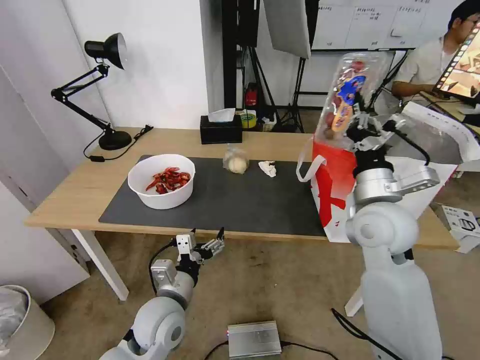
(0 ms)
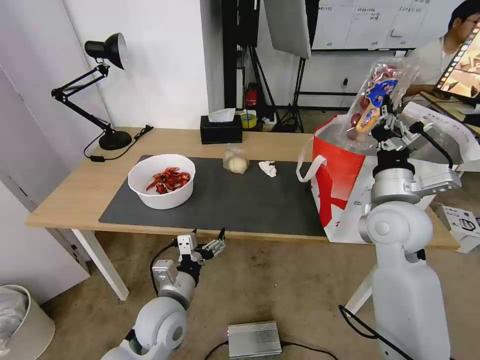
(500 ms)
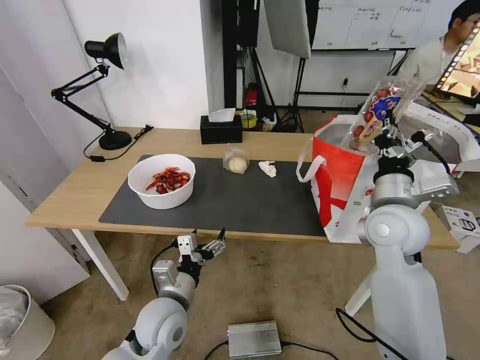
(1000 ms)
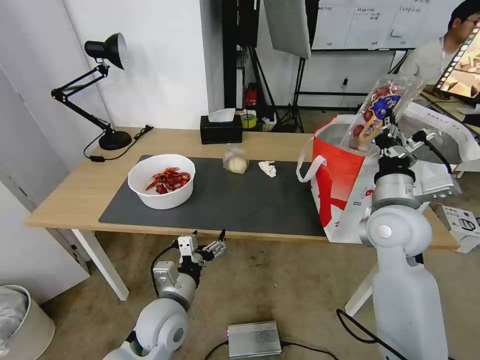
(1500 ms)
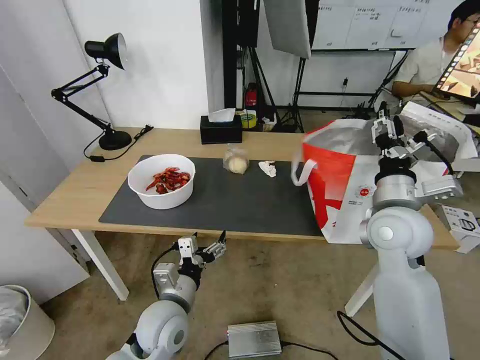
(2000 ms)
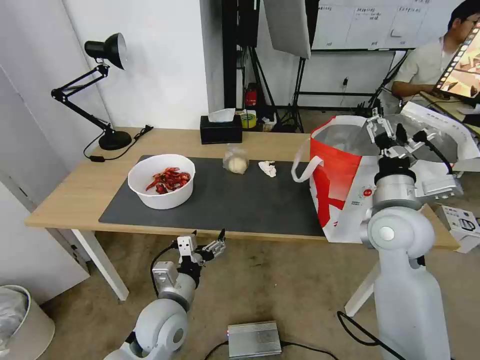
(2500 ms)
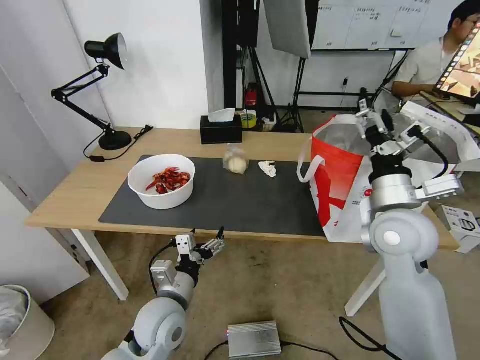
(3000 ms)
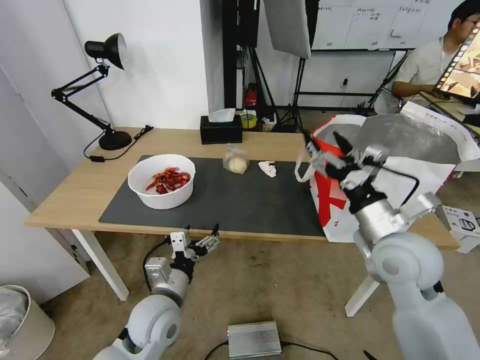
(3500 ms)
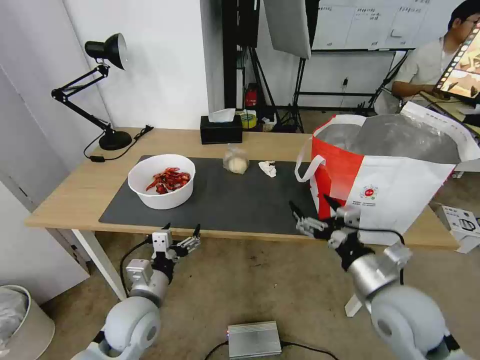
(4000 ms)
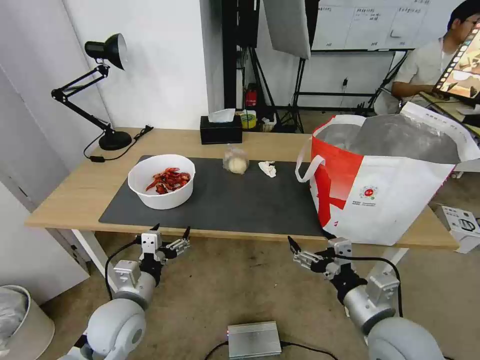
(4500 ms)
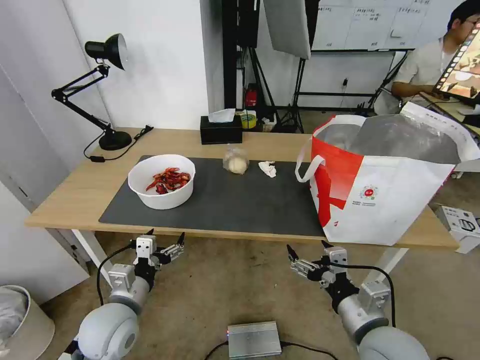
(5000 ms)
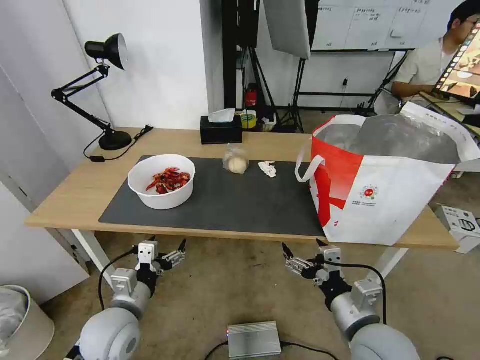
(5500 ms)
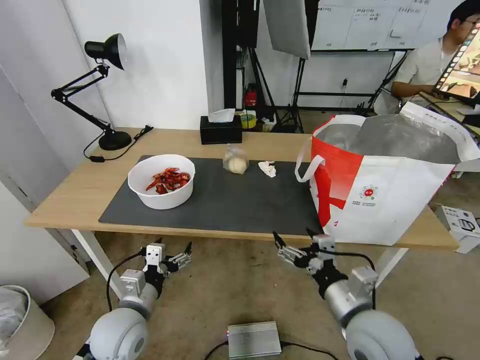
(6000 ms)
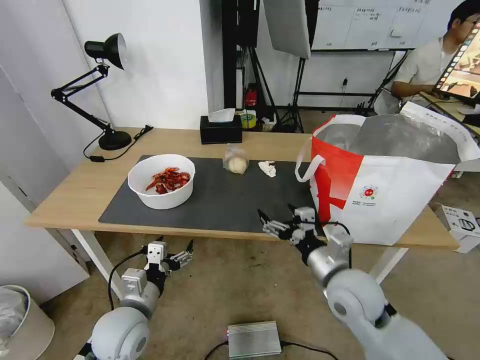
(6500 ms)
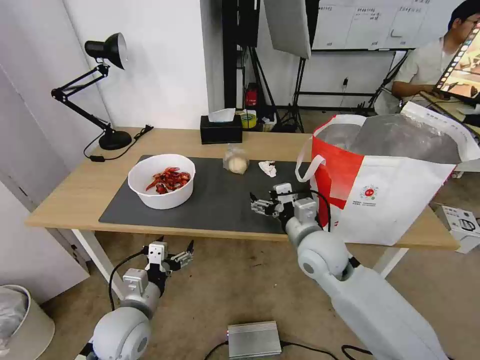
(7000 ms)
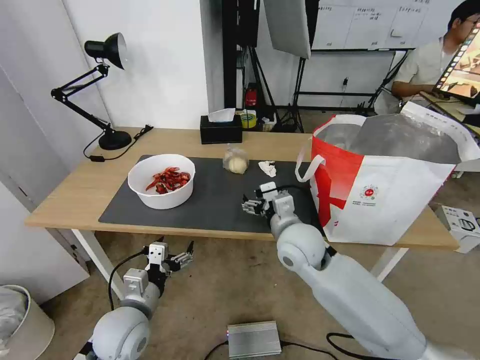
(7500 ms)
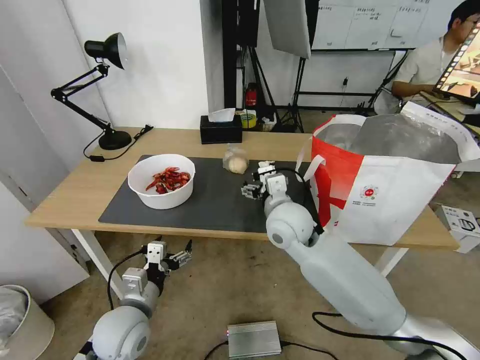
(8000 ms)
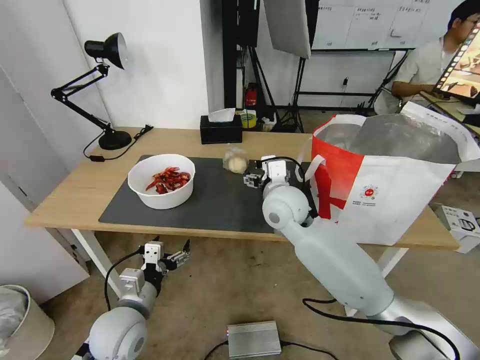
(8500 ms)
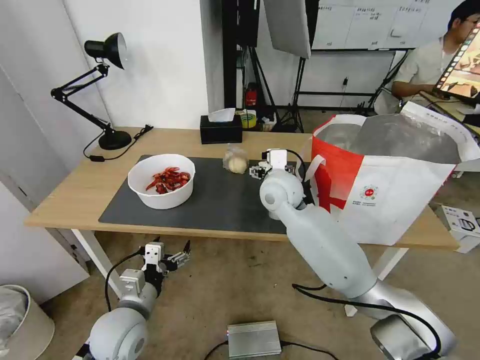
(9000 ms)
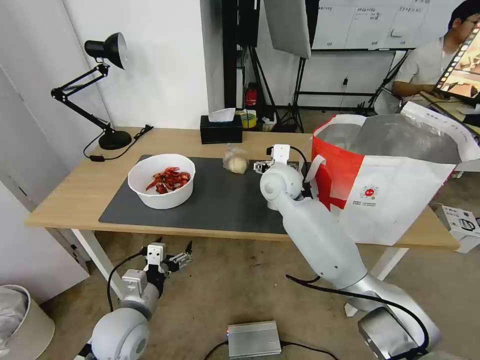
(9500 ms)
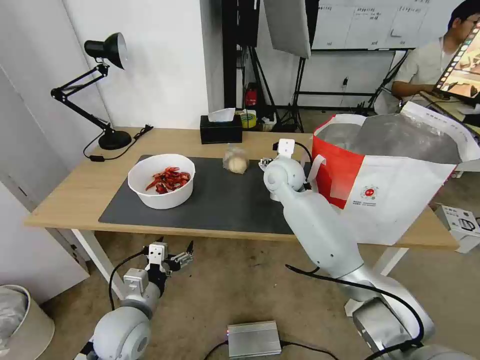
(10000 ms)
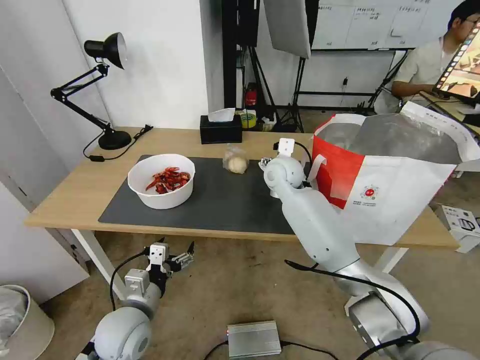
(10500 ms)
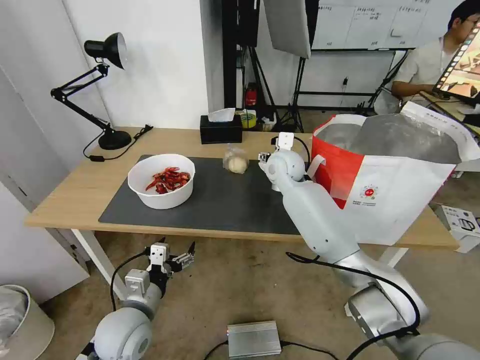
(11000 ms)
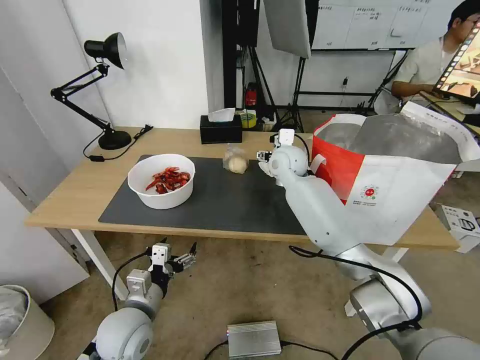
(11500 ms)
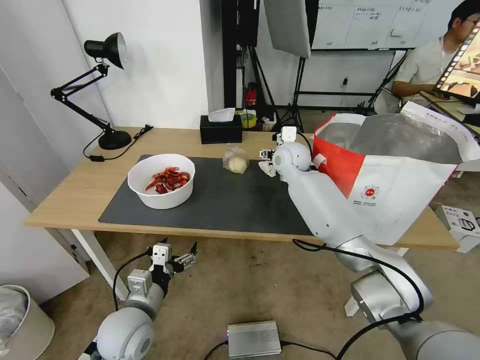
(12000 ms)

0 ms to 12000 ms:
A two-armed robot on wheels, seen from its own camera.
Task of the whole recording: Pick up the trash from the table and place it into the takeout bag.
0 ms to 2000 ms: The right gripper opens its fingers.
2000 ms to 4000 ms: The right gripper goes some 15 cm backward and downward, and opens up; the left gripper shifts approximately 5 cm to the left.
4000 ms to 6000 ms: The right gripper shifts by some 5 cm.
6000 ms to 8000 ms: The right gripper goes some 25 cm forward and to the left.
8000 ms to 10000 ms: The right gripper moves forward, some 15 cm.
10000 ms to 12000 ms: The right gripper moves forward, some 5 cm.

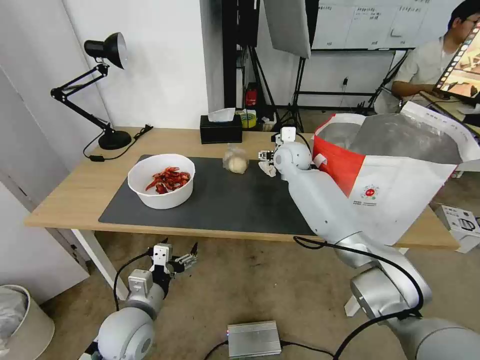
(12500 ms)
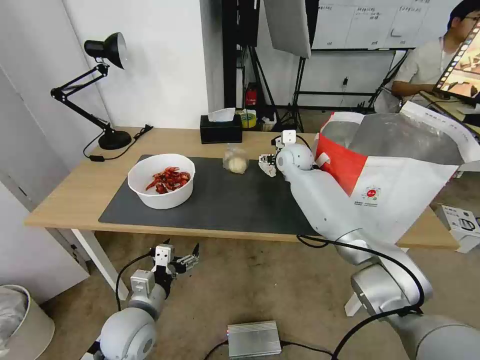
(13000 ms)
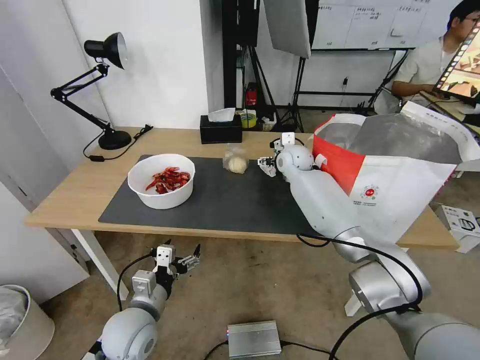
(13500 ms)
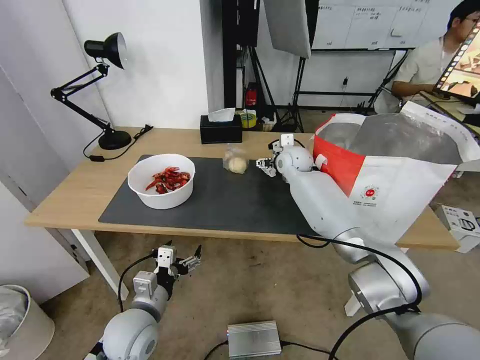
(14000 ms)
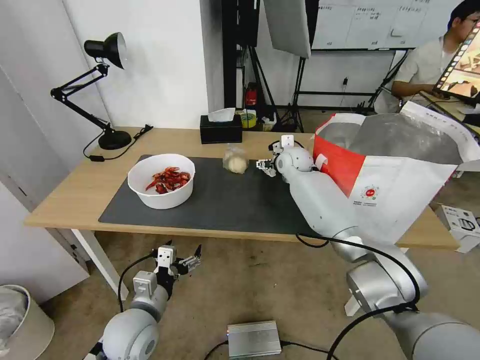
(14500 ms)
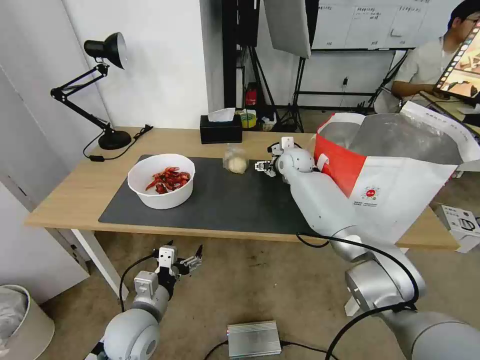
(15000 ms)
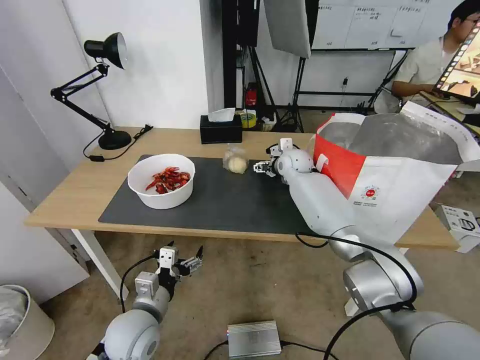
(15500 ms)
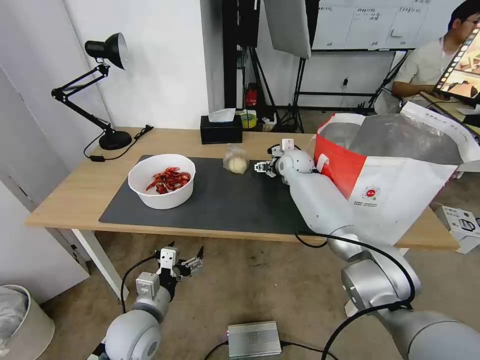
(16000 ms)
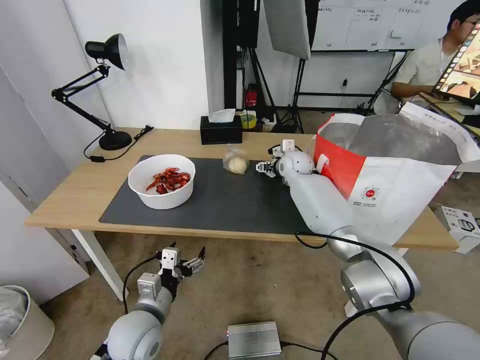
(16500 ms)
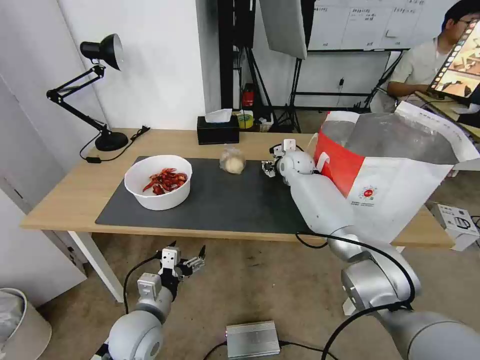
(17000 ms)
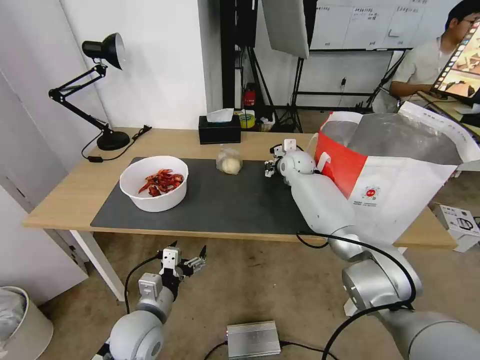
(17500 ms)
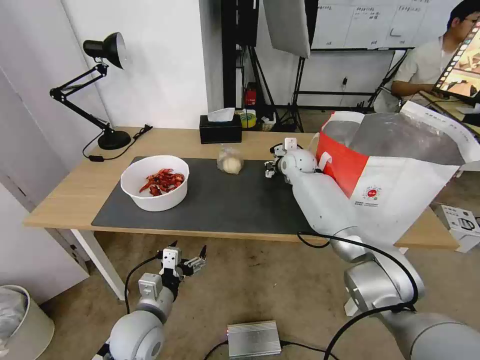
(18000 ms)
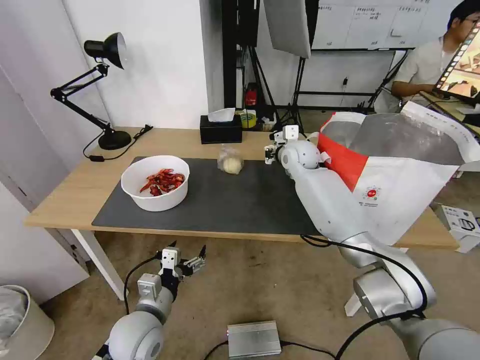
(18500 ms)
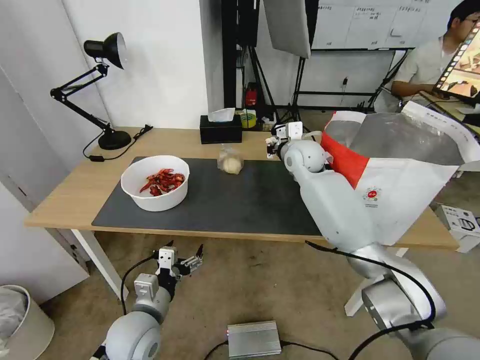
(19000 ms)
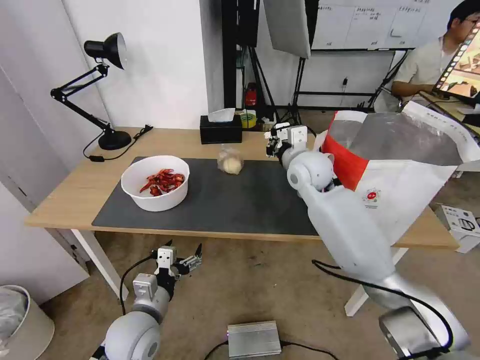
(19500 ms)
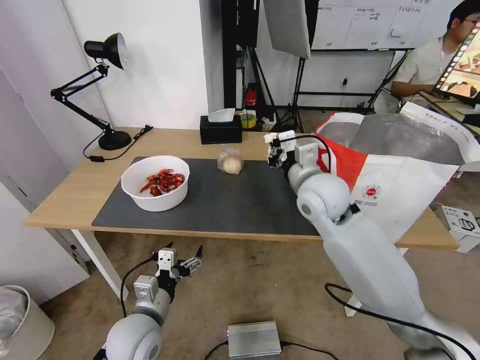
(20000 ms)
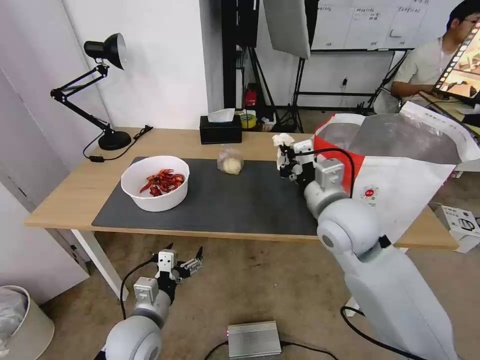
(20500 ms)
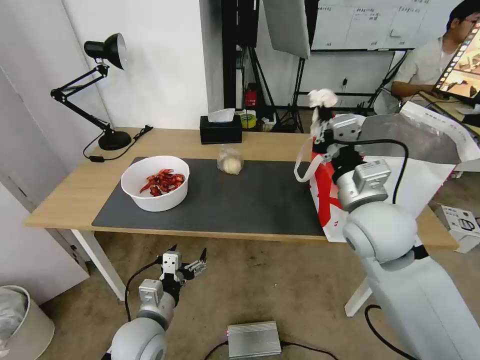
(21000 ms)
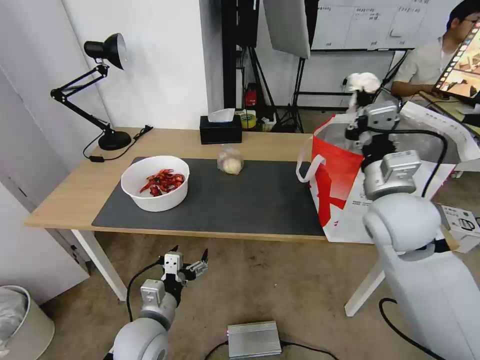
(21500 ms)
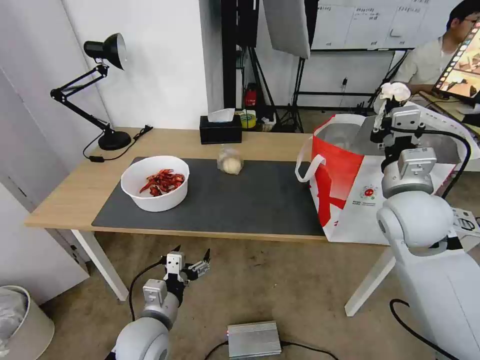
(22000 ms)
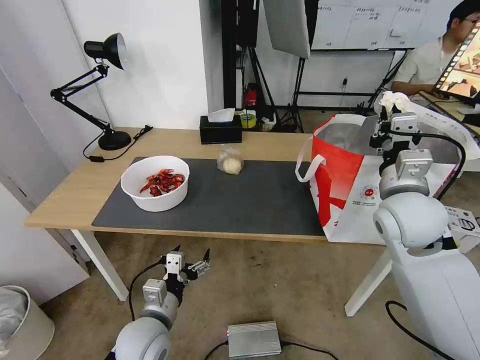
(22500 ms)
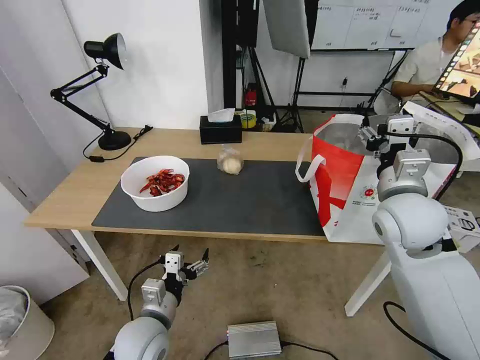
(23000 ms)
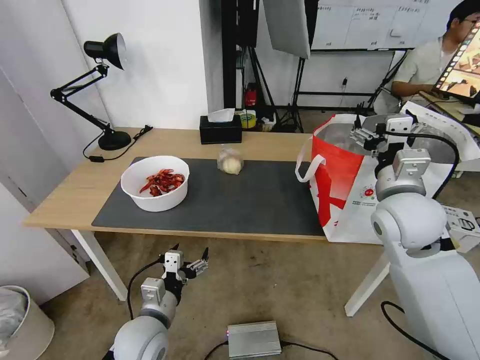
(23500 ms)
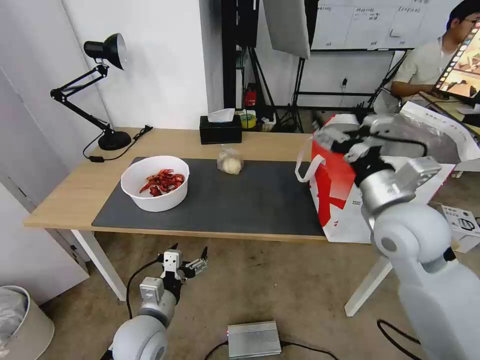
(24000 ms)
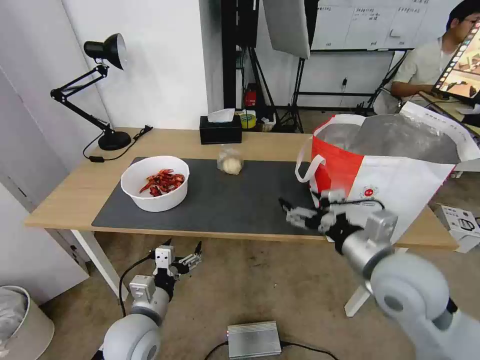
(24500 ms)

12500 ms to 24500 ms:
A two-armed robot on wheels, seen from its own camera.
Task of the whole recording: Pick up the trash from the table and place it into the takeout bag.
12500 ms to 14500 ms: The grippers stay close to where they were, moving slightly.
14500 ms to 16500 ms: The grippers make only small movements.
16500 ms to 18500 ms: The right gripper travels upward by some 5 cm, and closes.
18500 ms to 20500 ms: The right gripper heads backward, covering some 25 cm.
20500 ms to 22500 ms: The right gripper heads to the right, covering about 10 cm.
22500 ms to 24500 ms: The right gripper shifts some 10 cm backward, and opens its fingers.

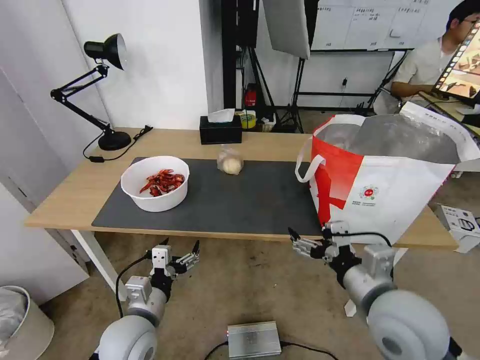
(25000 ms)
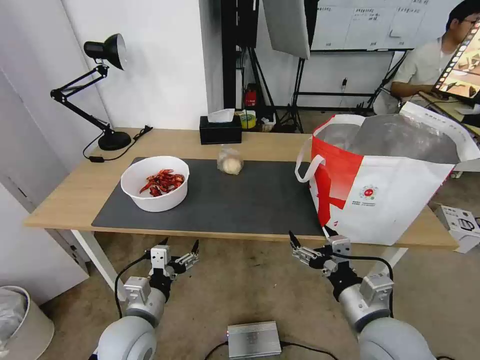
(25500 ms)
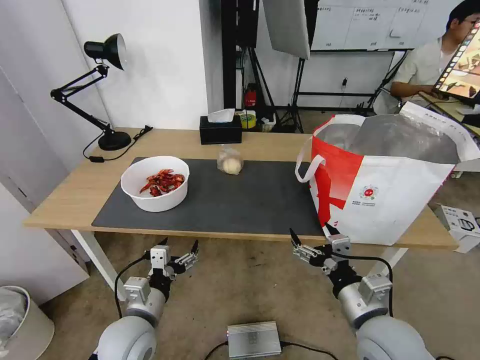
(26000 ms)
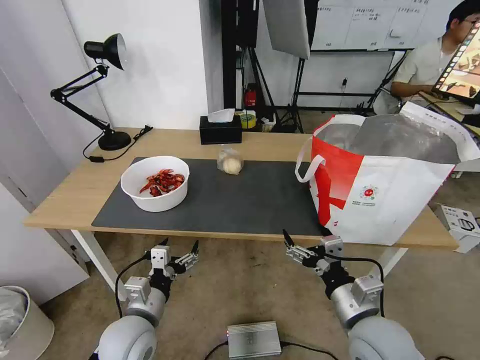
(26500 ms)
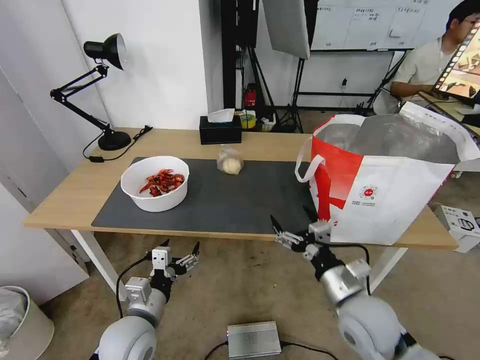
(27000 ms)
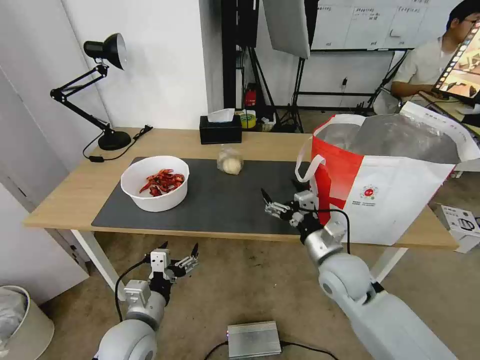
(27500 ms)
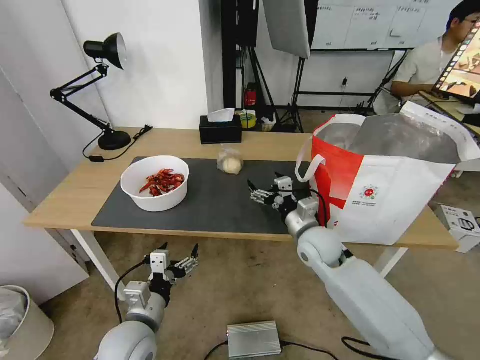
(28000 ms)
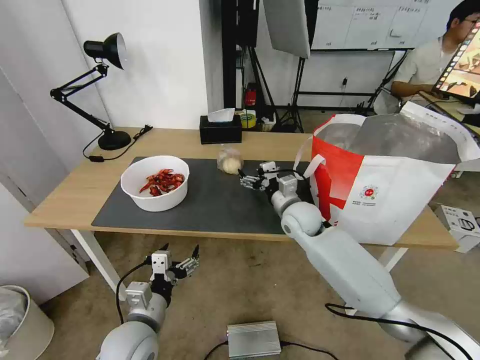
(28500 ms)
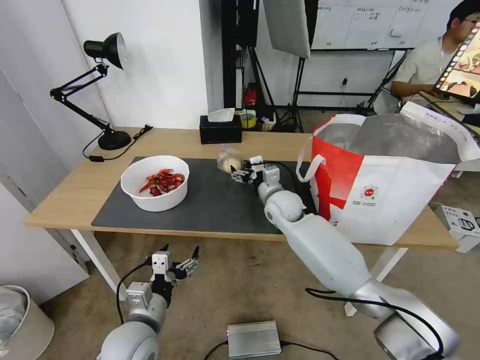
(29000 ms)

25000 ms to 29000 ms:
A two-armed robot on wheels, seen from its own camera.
Task of the whole recording: Pick up the trash from the table and place it into the takeout bag.
25000 ms to 27000 ms: The right gripper travels downward by about 10 cm.
27000 ms to 29000 ms: The right gripper heads forward, covering roughly 30 cm.
